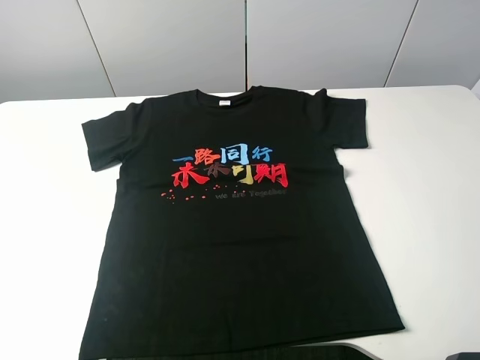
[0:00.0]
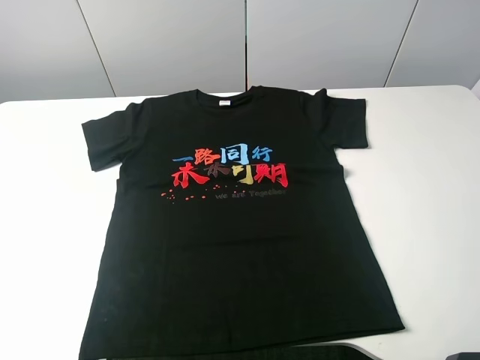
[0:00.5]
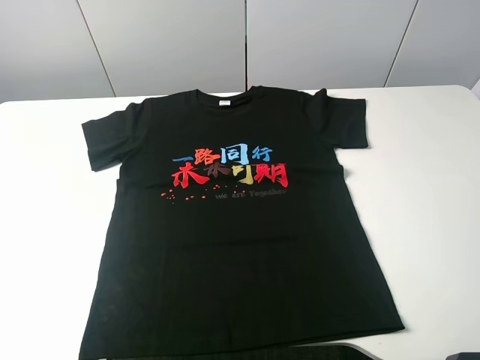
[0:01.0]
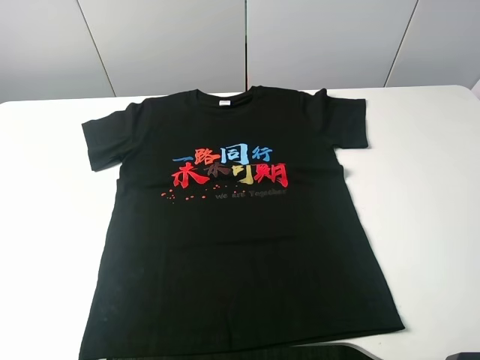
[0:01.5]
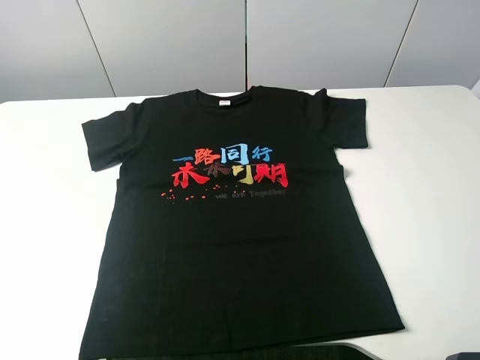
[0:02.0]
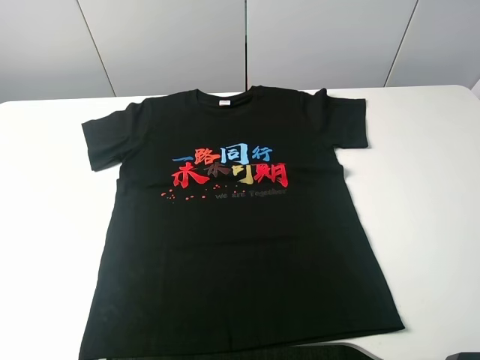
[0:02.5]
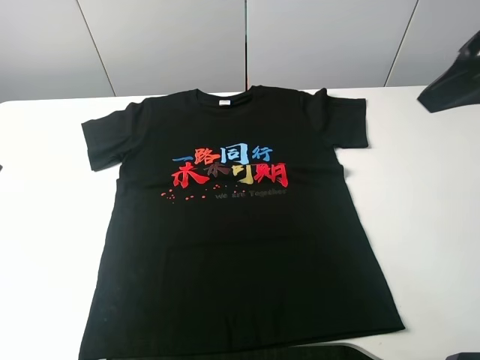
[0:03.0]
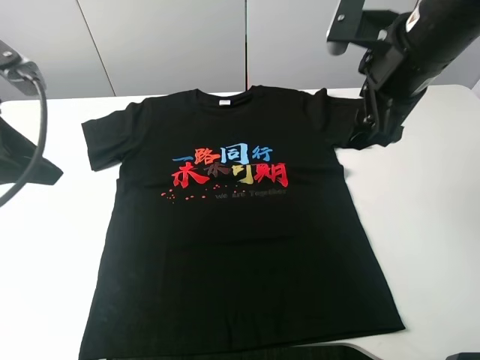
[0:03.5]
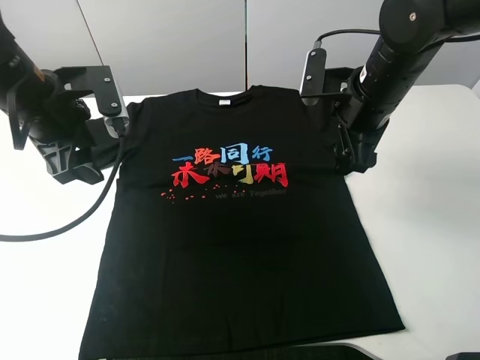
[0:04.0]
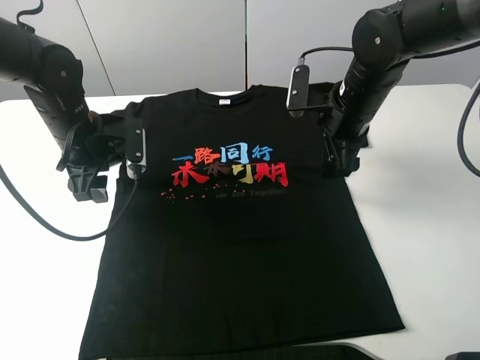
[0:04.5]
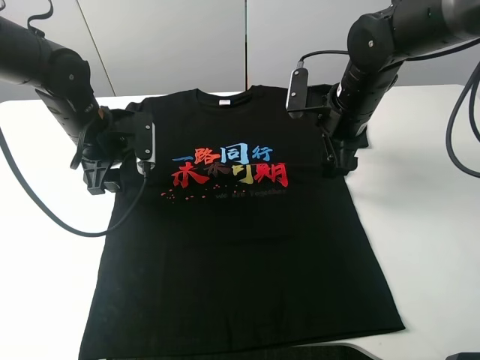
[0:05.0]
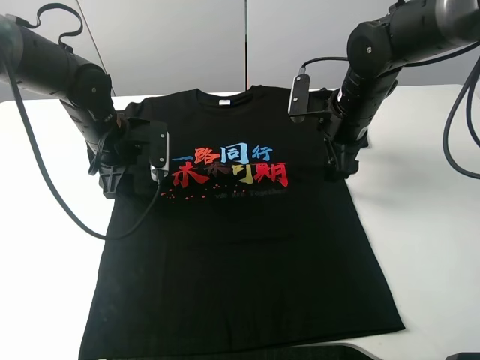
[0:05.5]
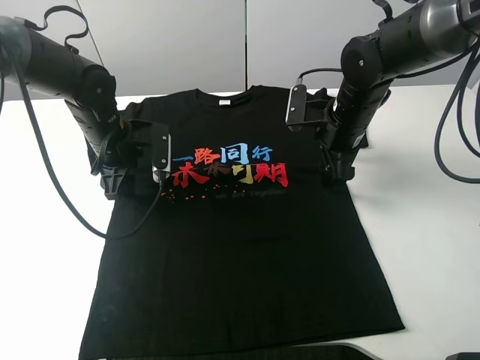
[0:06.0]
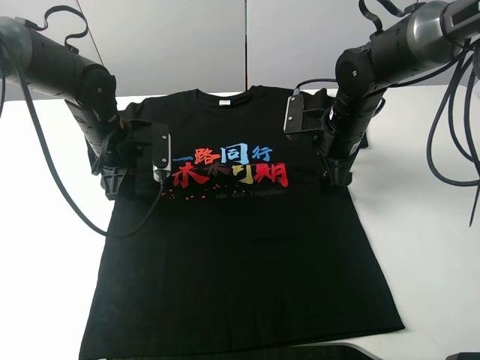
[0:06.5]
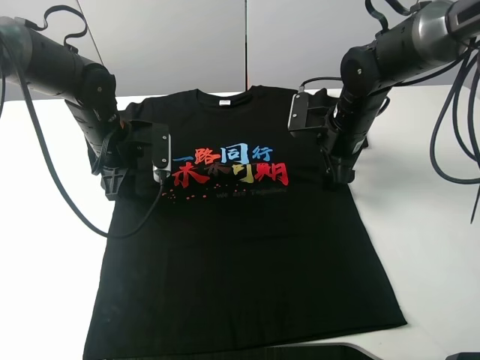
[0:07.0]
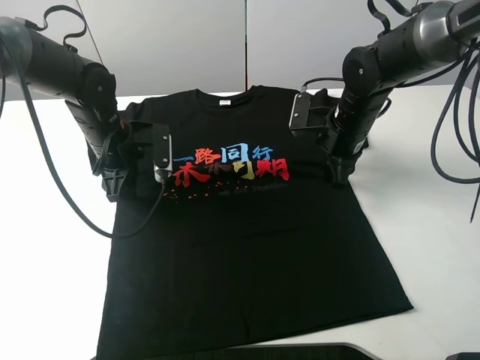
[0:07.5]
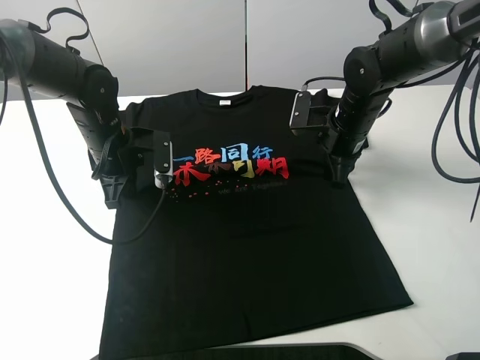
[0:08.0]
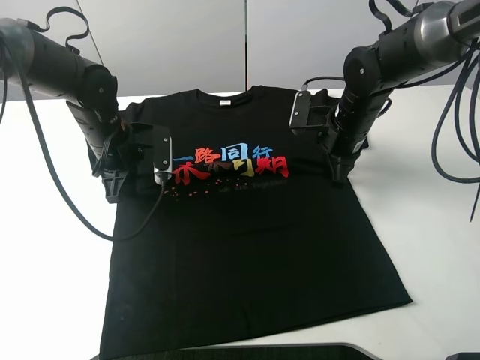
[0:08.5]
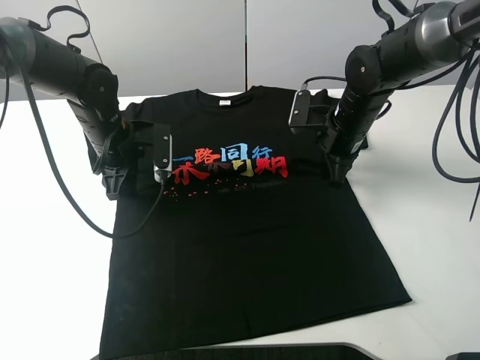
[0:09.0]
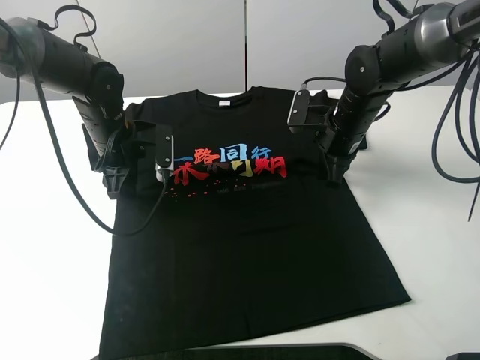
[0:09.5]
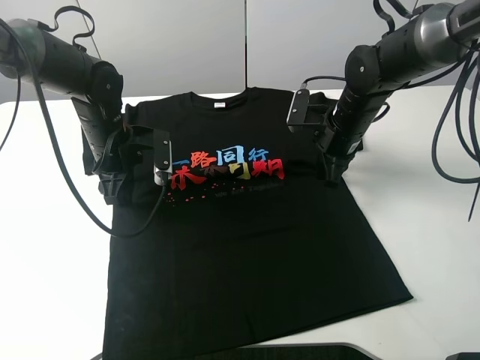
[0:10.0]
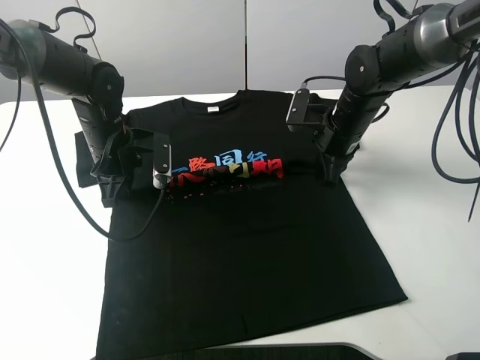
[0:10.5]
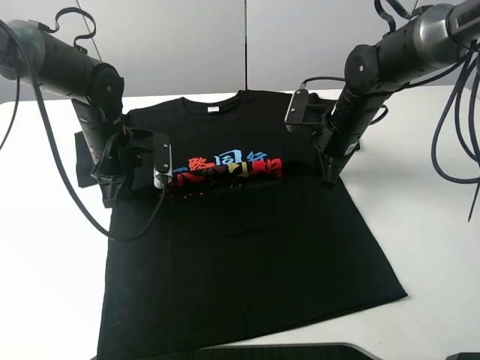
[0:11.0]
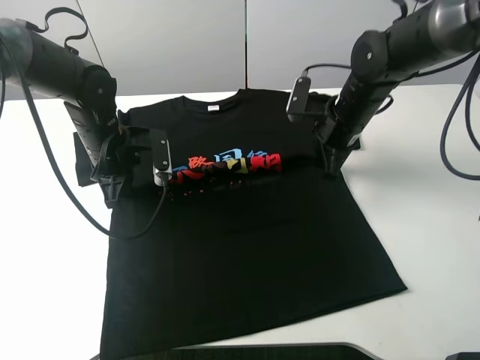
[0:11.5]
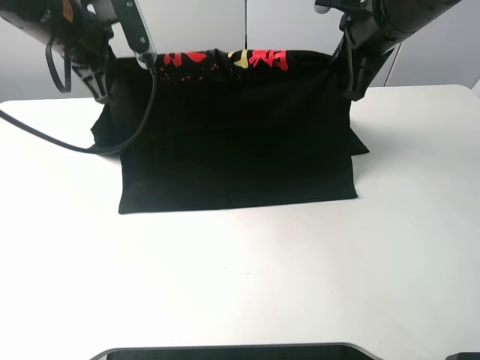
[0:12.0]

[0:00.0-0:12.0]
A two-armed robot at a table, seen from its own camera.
Task of the whole recording: fold the clothes on the table.
Step, 0:00.0 to 0:07.5: Lift the black T-shirt with the left gripper.
0:00.0 to 0:02.0: The two grippers keep their place.
0:02.0 to 0:04.0: Both grippers move forward, about 30 cm.
0:04.0 to 0:06.0: The left gripper shifts roughly 10 cm downward and forward. Meanwhile the right gripper travels downward by approximately 5 cm.
0:06.0 to 0:08.0: The left gripper closes; the right gripper closes its fingers.
0:08.0 to 0:10.0: The left gripper opens.
0:10.0 to 0:12.0: The grippers both shift upward by approximately 20 cm. The left gripper closes.

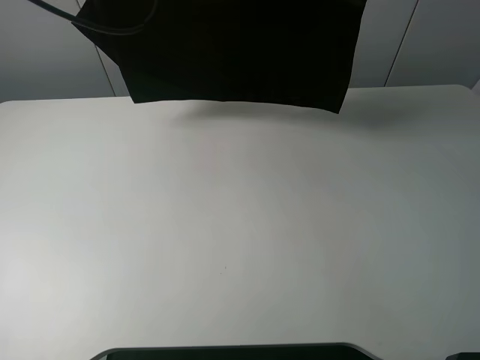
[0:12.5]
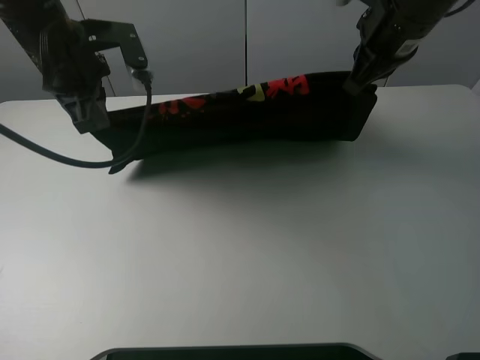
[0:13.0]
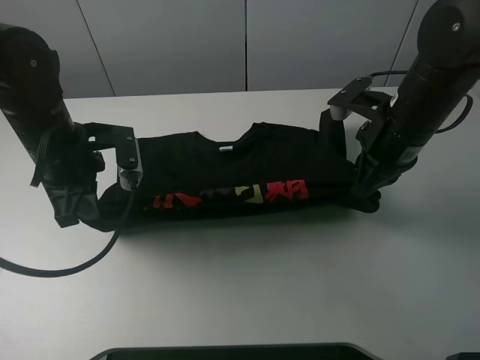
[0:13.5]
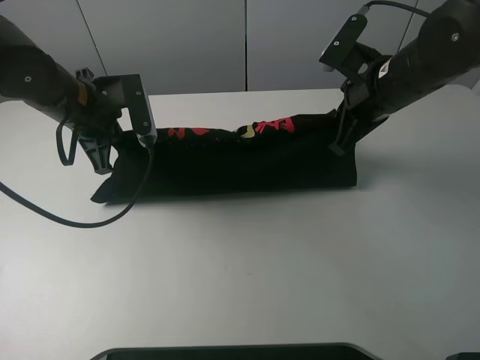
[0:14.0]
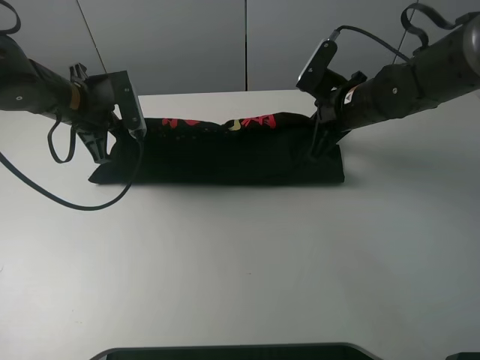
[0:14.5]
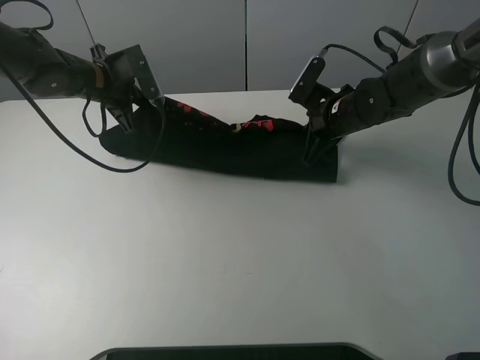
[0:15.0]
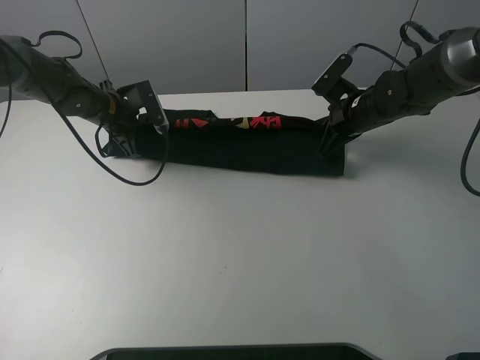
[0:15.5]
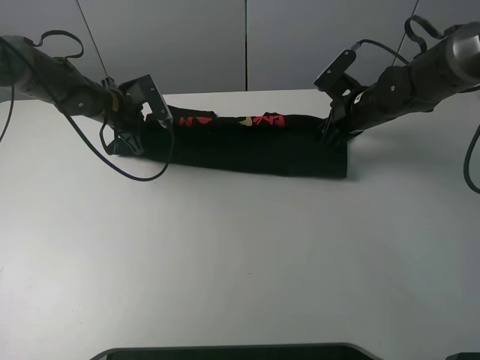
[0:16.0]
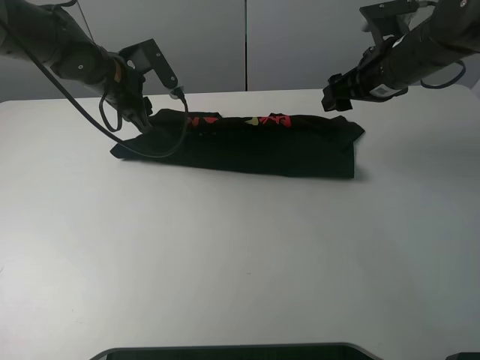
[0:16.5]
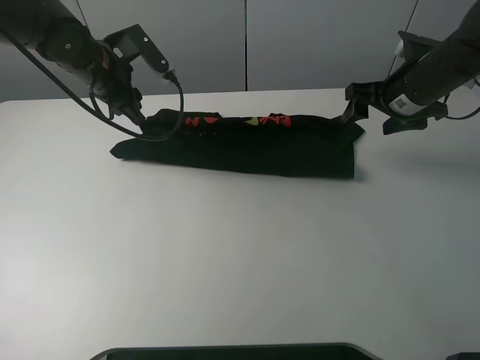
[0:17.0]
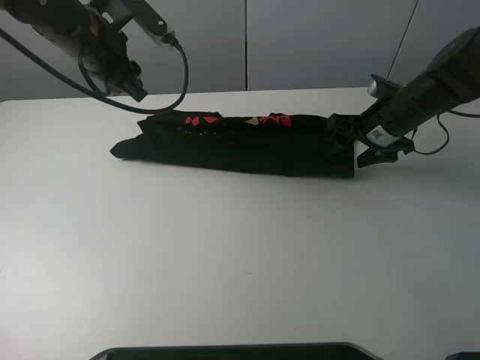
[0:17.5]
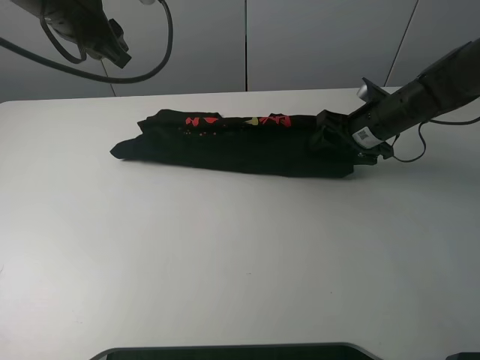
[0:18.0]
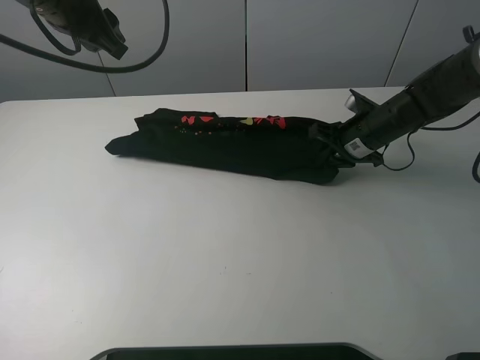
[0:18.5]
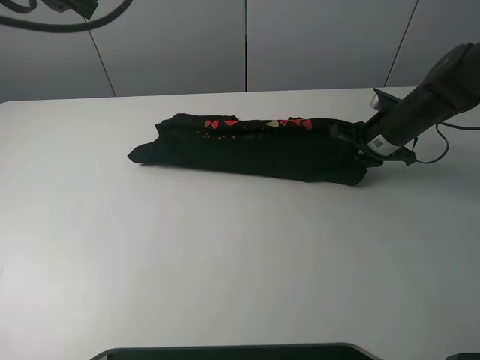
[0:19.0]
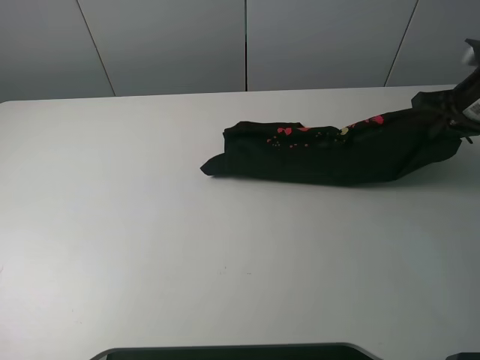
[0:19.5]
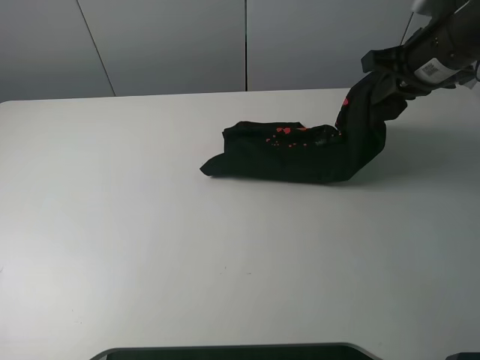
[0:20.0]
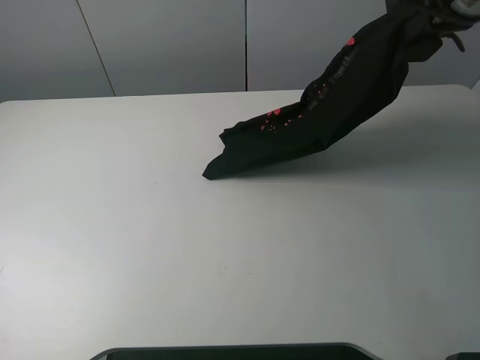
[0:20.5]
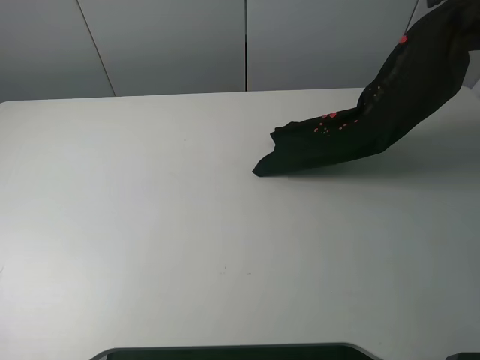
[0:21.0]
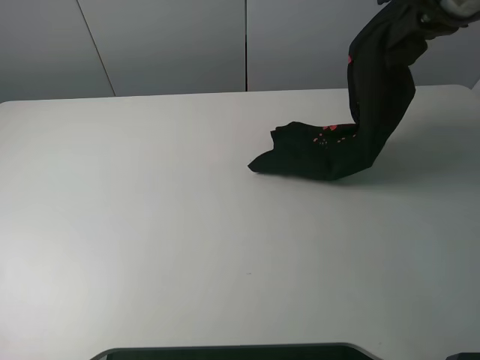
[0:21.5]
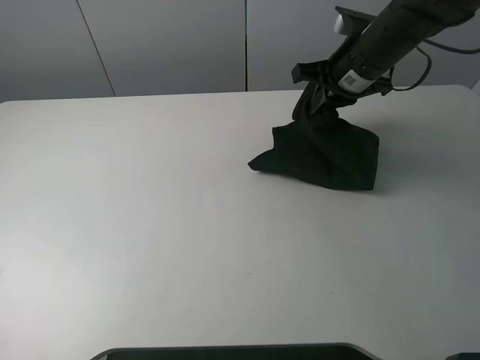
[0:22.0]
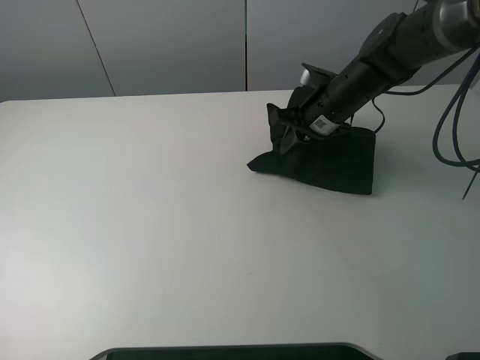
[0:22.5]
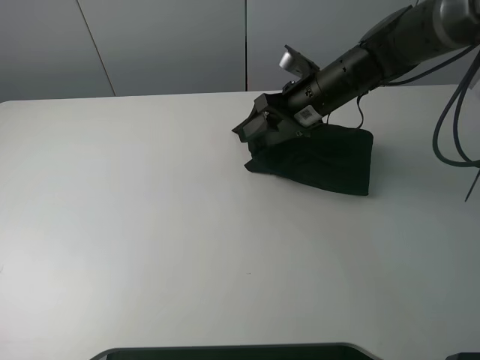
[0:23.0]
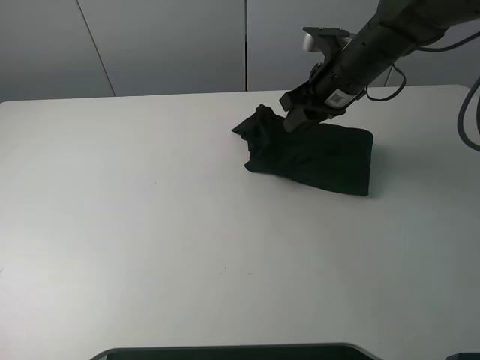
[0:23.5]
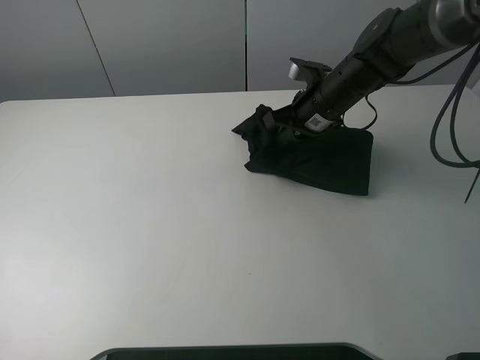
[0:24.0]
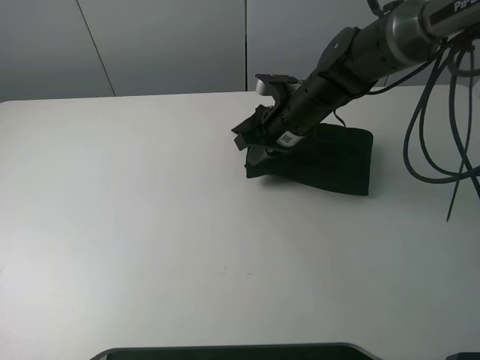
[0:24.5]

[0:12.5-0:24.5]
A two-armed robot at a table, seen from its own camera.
Task of the whole recording: fold the clothes on the table.
Step, 0:12.5 to 0:16.5: Fold the black T-shirt downward with the left gripper.
Step, 0:17.0 to 0:18.5: Grasp the black T-shirt with the right gripper.
Step, 0:19.0 to 0:23.0: Fold the black T-shirt from right to left with right gripper.
0:12.5 to 0:14.5: Both grippers move downward, roughly 20 cm.
0:14.5 to 0:16.5: The left gripper shifts about 5 cm forward, and opens up; the right gripper shifts about 5 cm upward, and opens its fingers.
0:16.5 to 0:18.5: The right gripper shifts some 10 cm downward, and closes up. The left gripper travels upward and backward by roughly 15 cm.
0:18.5 to 0:20.5: The left gripper moves upward and backward, some 15 cm. The right gripper travels upward by roughly 25 cm.
0:20.5 to 0:22.5: The right gripper moves downward and to the left, about 20 cm.
0:22.5 to 0:24.5: The right gripper is displaced to the left by roughly 5 cm, and opens, then closes once more.

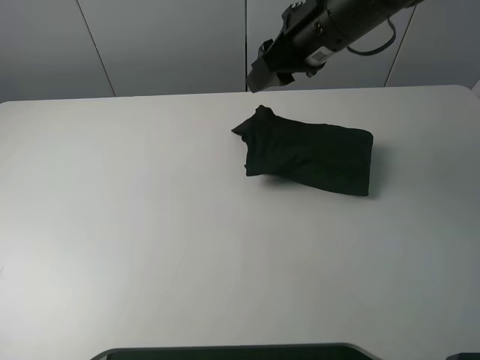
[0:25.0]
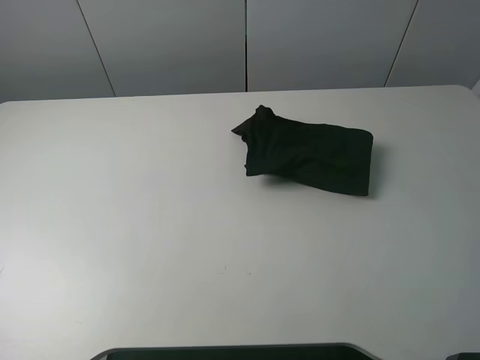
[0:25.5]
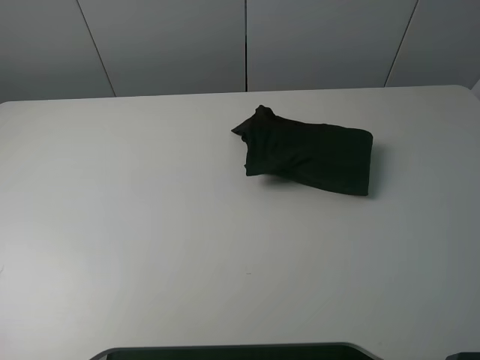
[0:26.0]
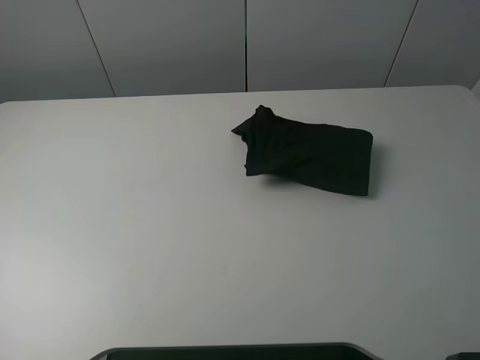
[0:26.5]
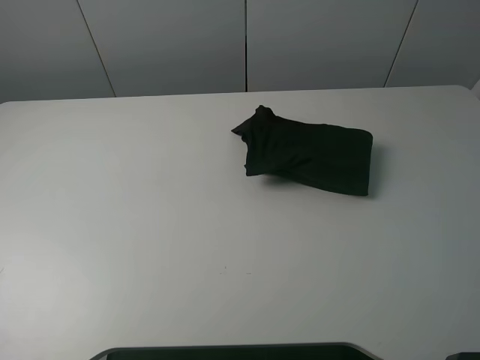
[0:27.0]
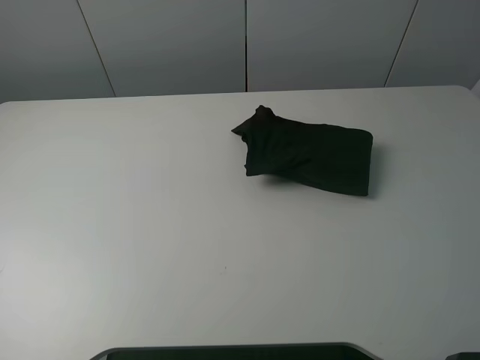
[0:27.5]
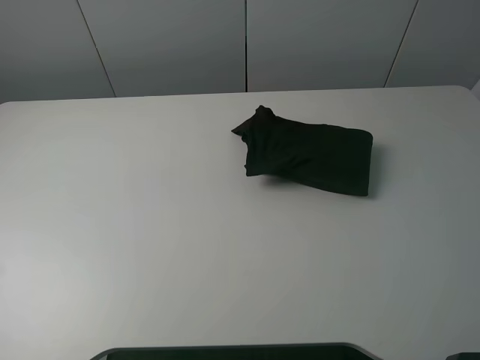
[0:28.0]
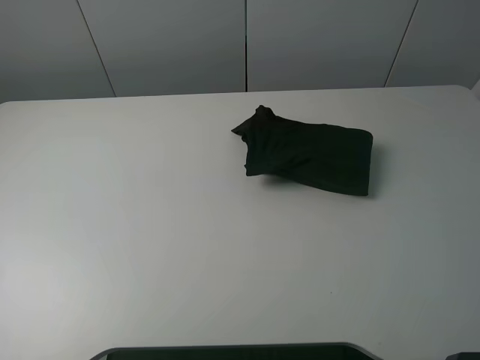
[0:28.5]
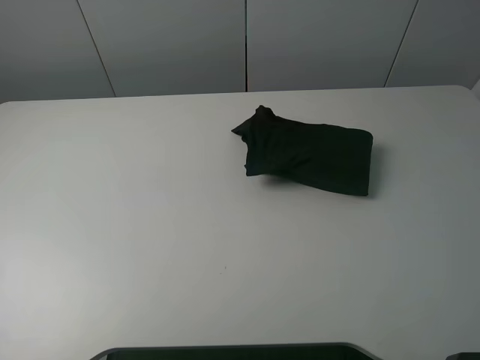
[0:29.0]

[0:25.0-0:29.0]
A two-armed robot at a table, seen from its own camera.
Task of the whole recording: fold the clothes on the table.
0:25.0 to 0:27.0: The left gripper moves backward and to the left, roughly 20 cm, while the right gripper is displaced backward, to the right and upward by some 50 cm.
